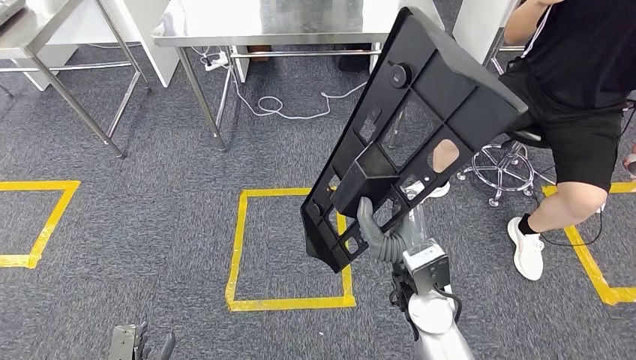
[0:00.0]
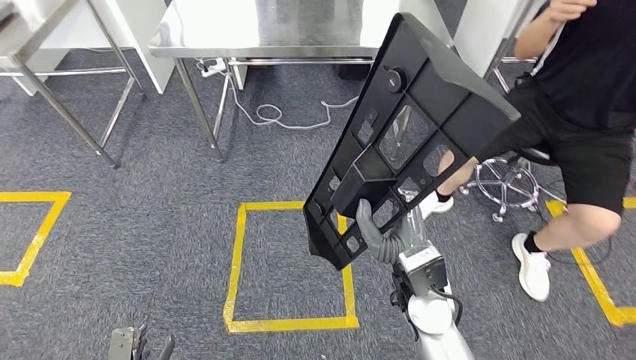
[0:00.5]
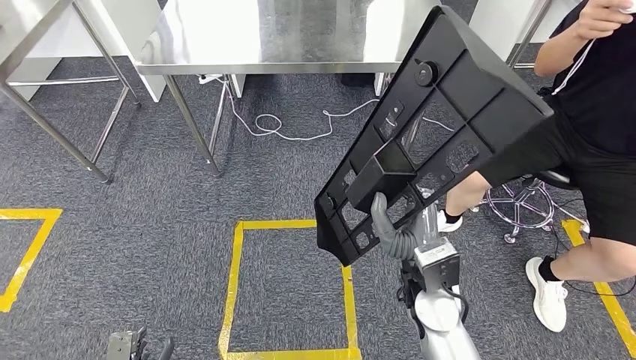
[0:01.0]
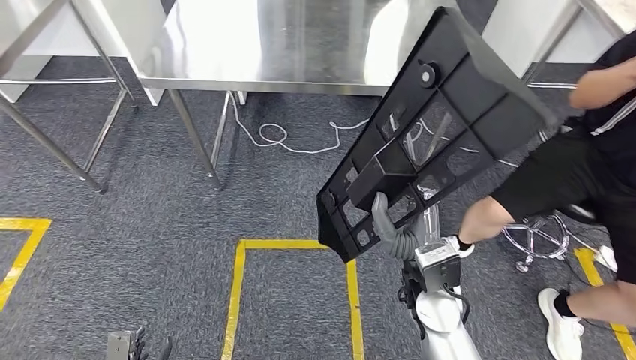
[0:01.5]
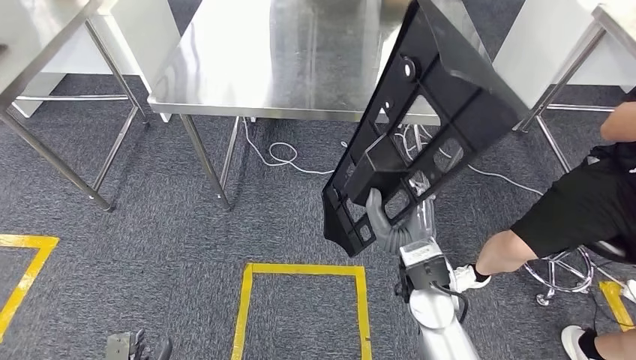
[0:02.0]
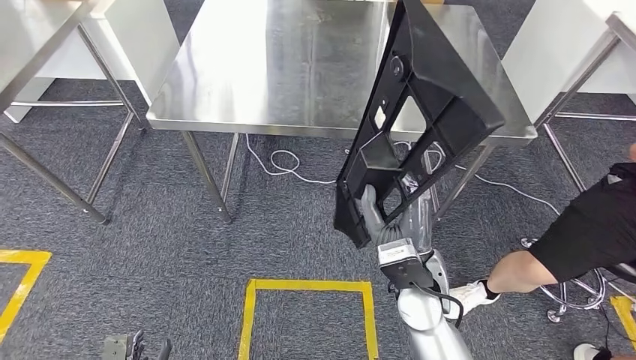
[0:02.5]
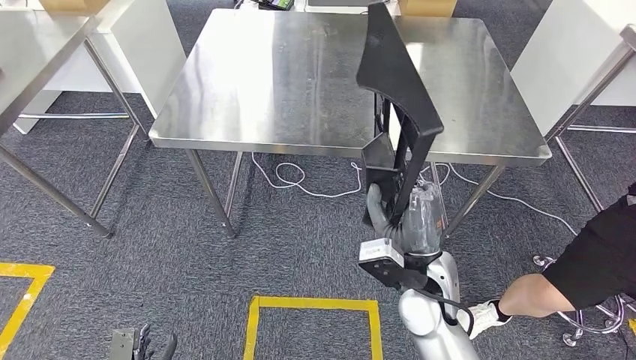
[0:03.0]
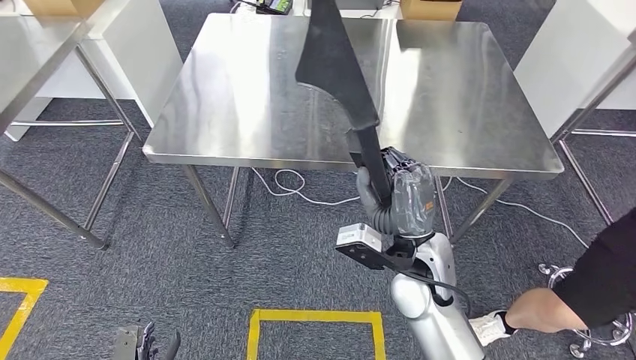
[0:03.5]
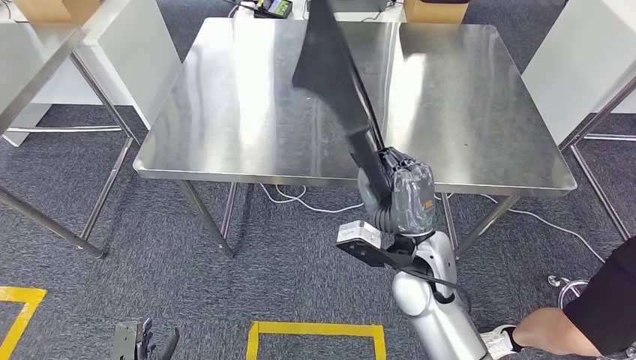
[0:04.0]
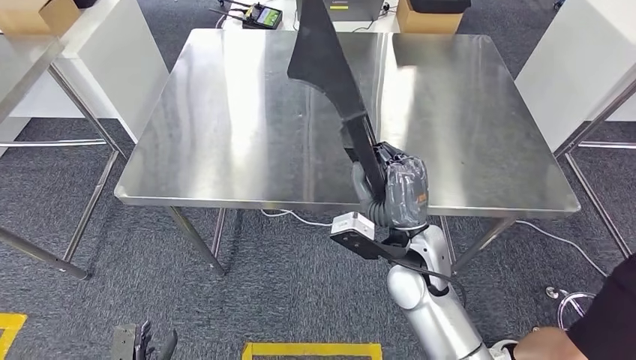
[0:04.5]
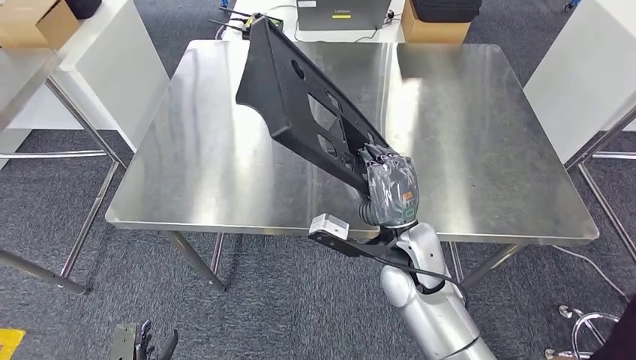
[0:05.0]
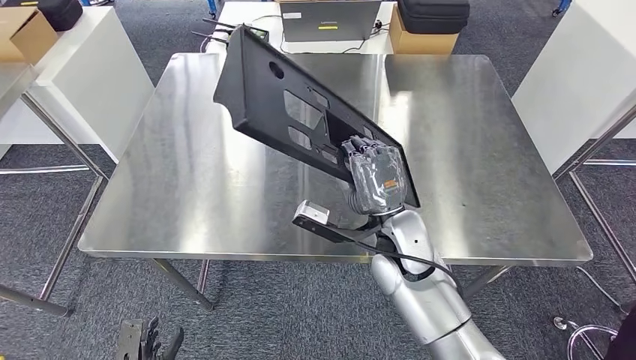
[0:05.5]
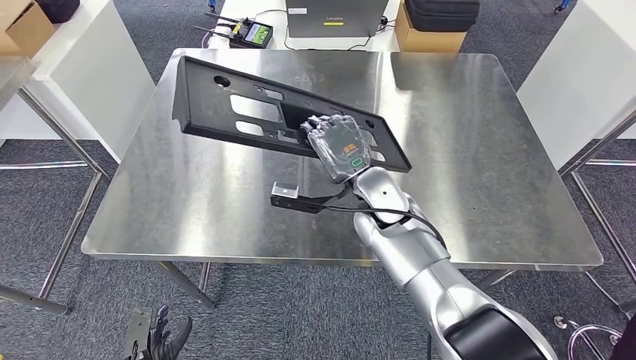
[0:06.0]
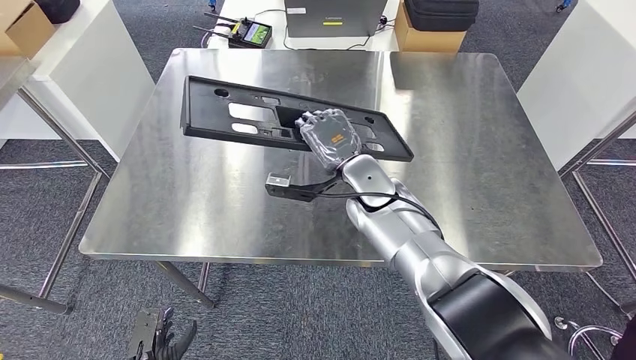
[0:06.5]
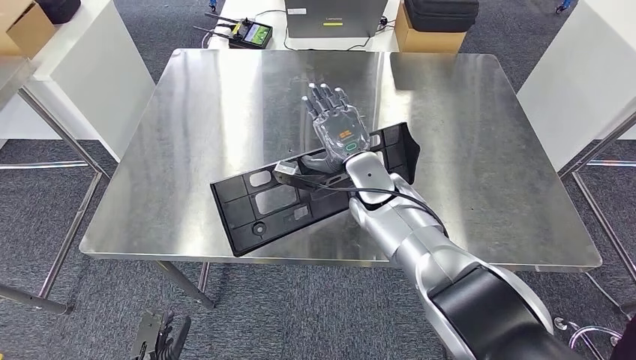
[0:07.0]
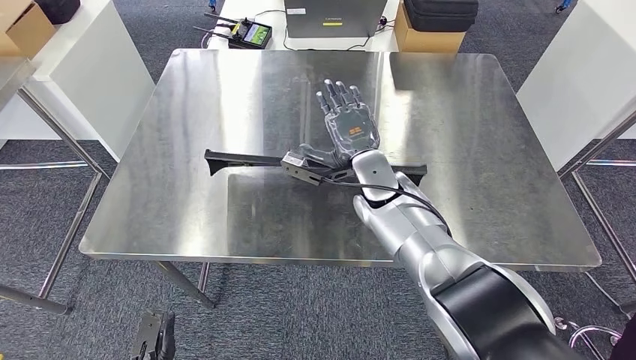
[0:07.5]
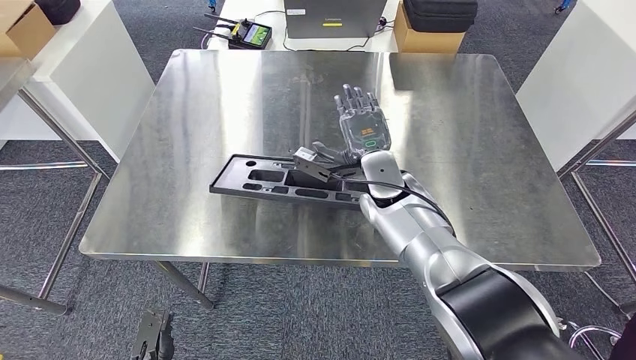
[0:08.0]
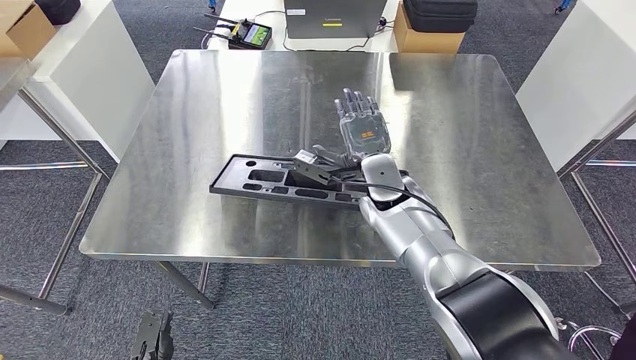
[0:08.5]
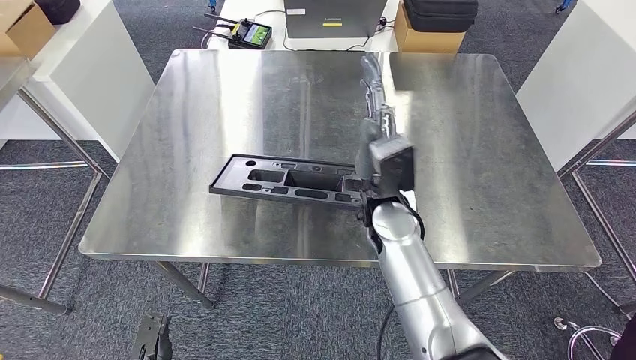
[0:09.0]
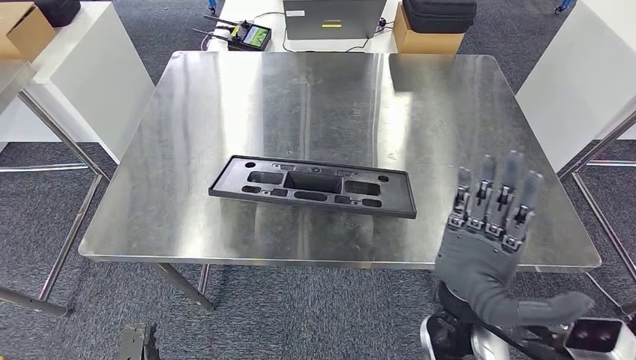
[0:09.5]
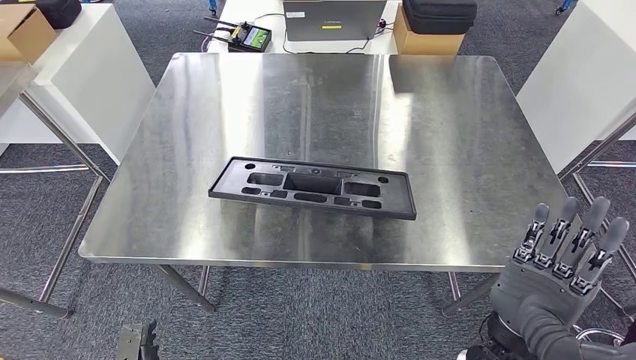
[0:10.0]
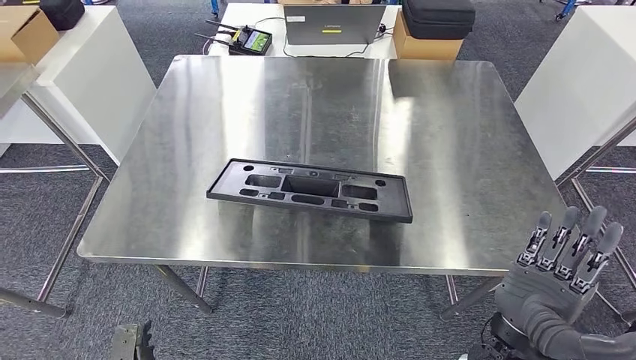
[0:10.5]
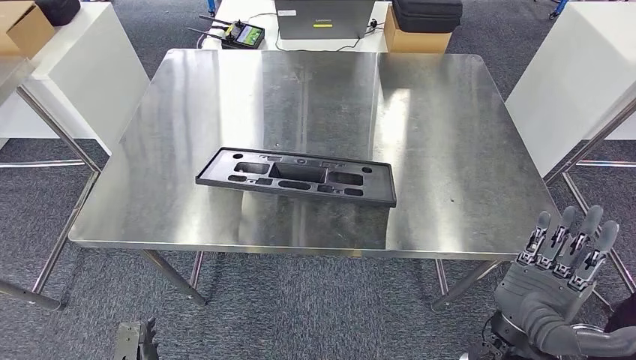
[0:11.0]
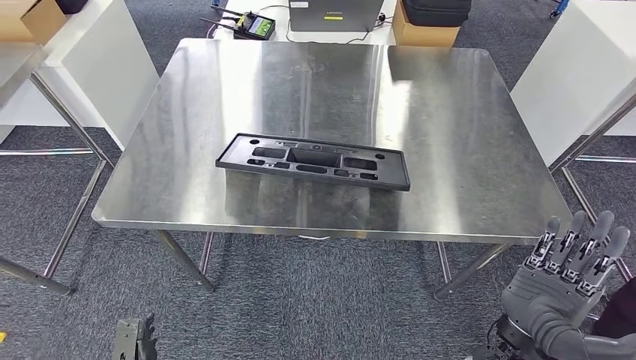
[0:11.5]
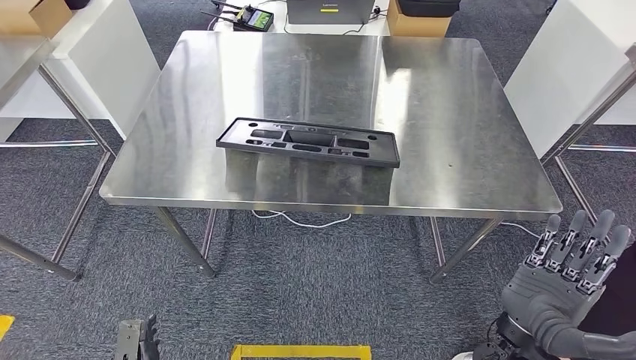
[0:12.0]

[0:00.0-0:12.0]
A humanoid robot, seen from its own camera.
Step, 0:00.0 to 0:02.5: Move the large material to the workbench.
0:08.0 to 0:10.0: The right hand moves backward and to the right, roughly 30 cm.

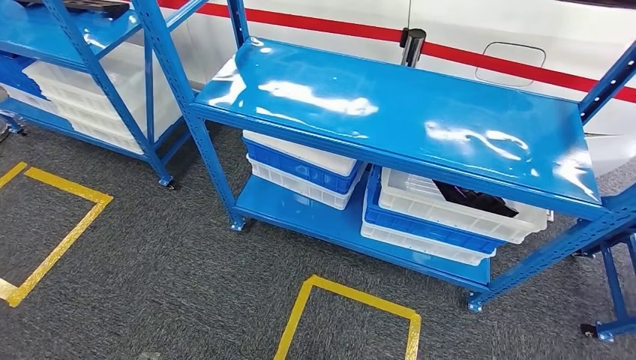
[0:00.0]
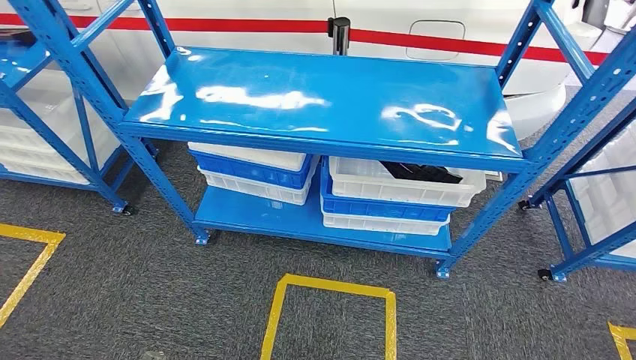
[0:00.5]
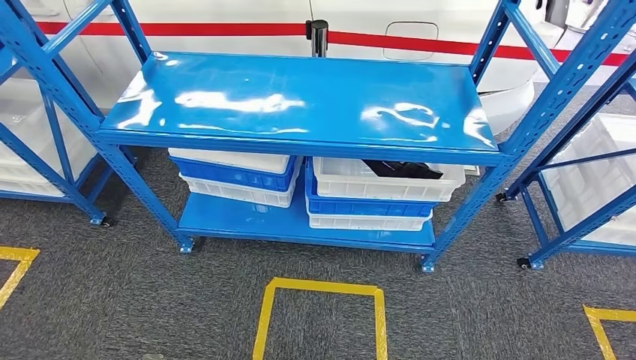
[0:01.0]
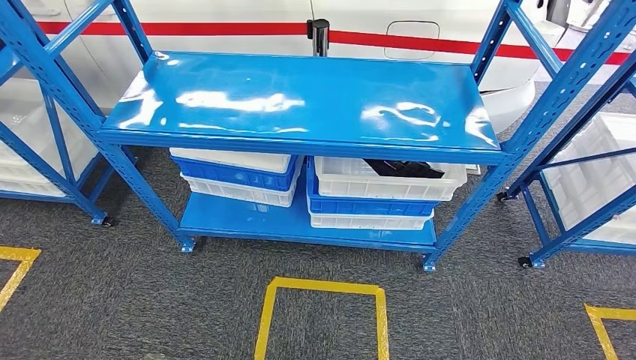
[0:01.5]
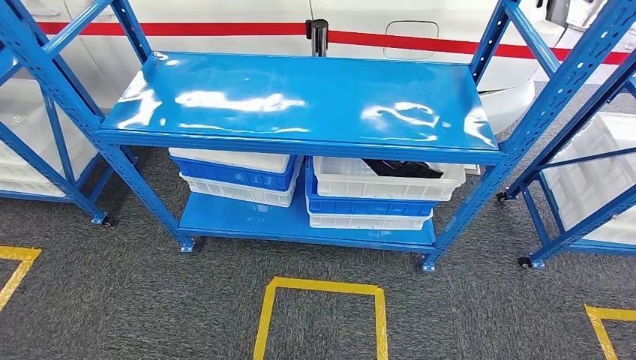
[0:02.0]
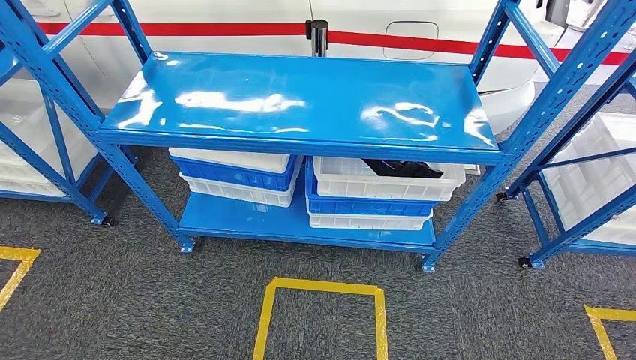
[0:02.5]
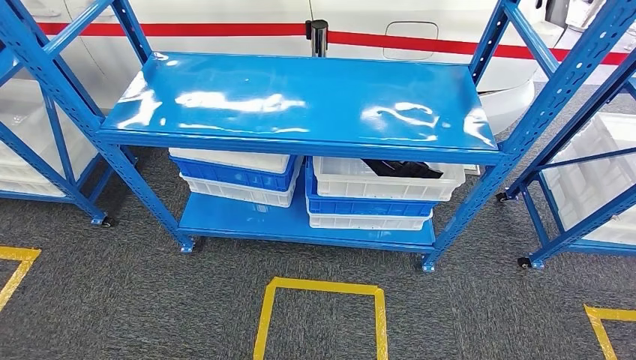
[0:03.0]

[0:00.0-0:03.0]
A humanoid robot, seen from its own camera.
Step, 0:00.0 to 0:03.0: Return to the initial position at the shelf.
0:01.5 to 0:03.0: Both hands move backward, approximately 10 cm.
